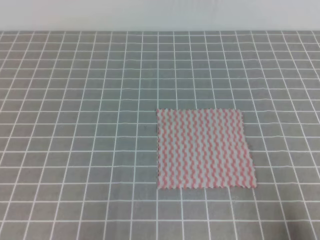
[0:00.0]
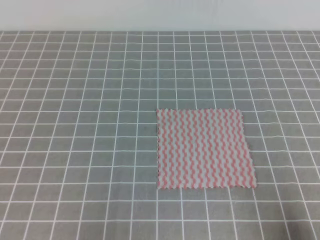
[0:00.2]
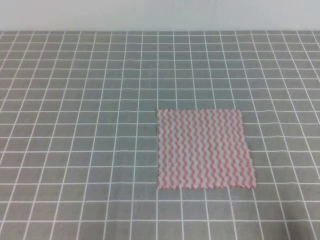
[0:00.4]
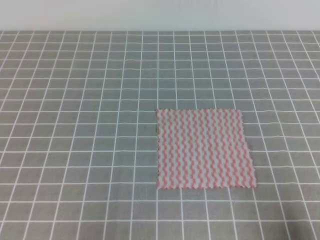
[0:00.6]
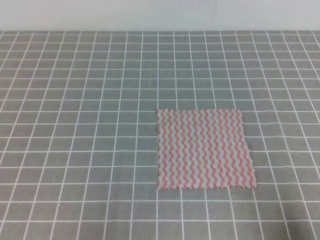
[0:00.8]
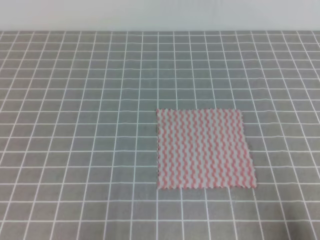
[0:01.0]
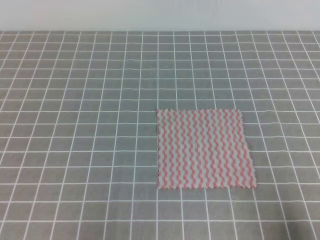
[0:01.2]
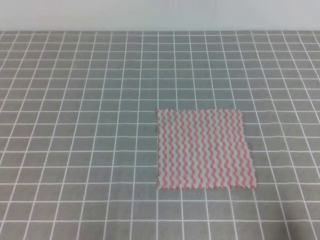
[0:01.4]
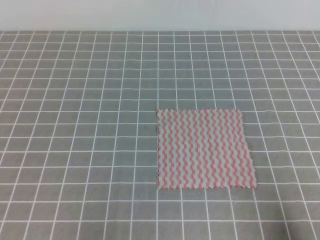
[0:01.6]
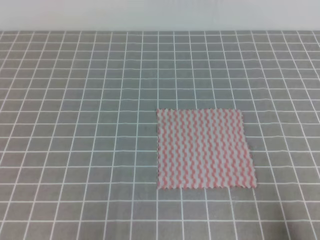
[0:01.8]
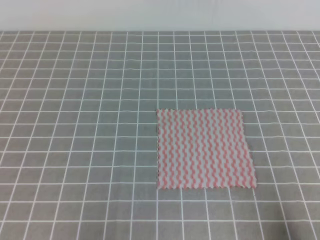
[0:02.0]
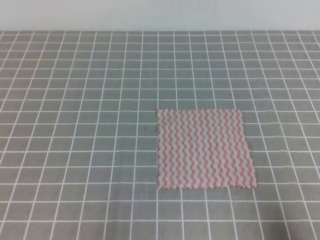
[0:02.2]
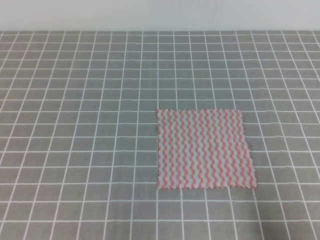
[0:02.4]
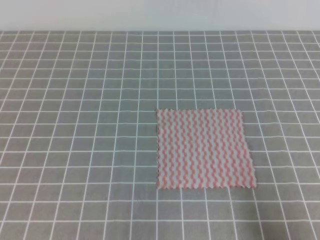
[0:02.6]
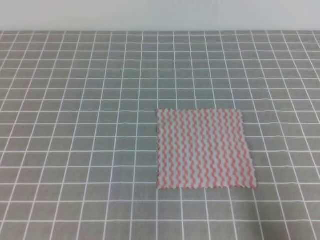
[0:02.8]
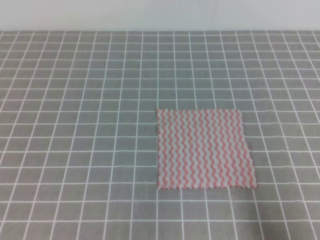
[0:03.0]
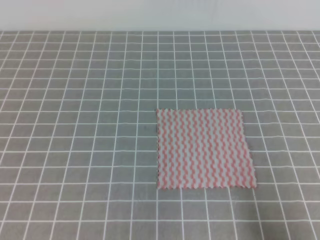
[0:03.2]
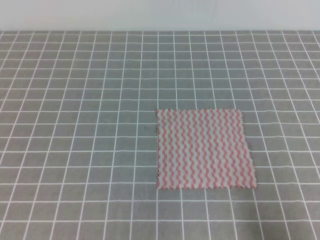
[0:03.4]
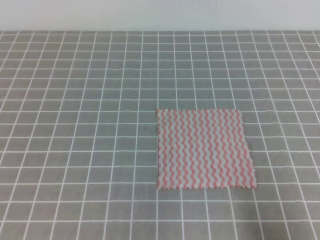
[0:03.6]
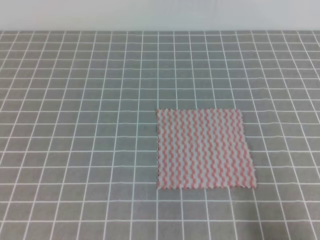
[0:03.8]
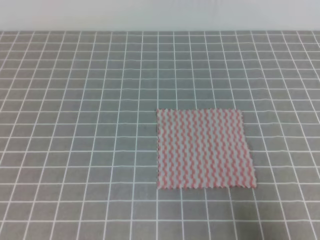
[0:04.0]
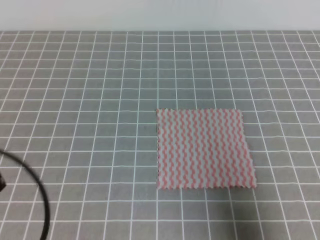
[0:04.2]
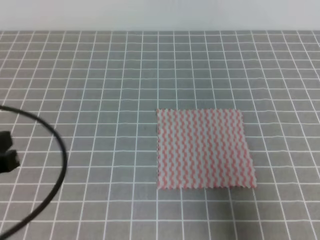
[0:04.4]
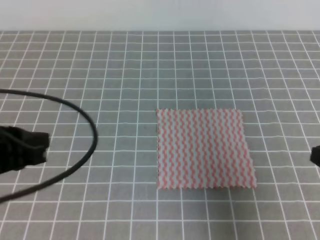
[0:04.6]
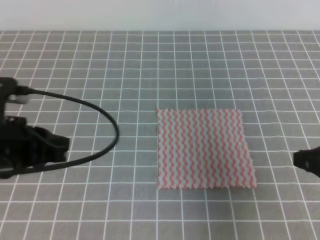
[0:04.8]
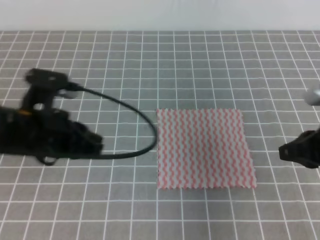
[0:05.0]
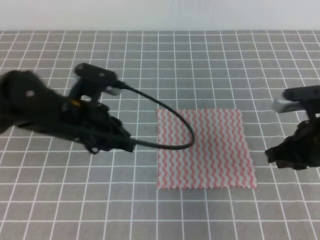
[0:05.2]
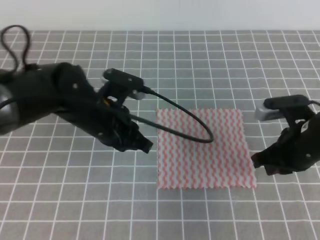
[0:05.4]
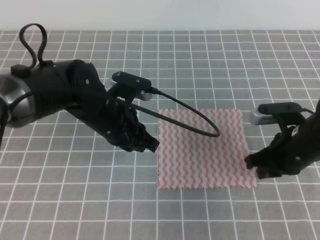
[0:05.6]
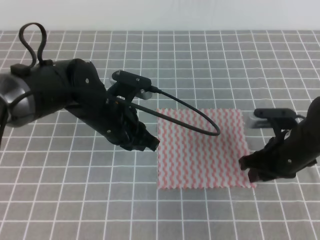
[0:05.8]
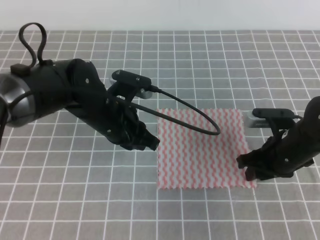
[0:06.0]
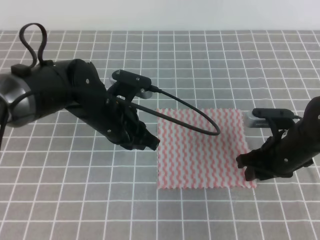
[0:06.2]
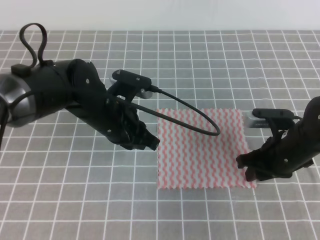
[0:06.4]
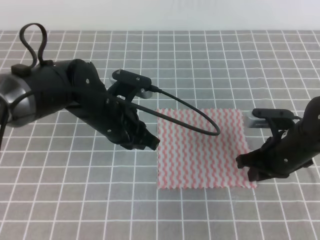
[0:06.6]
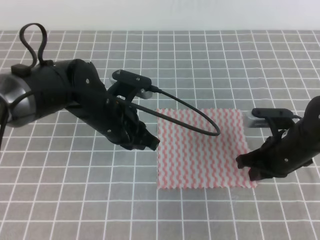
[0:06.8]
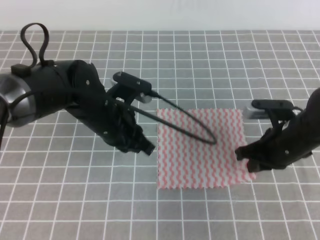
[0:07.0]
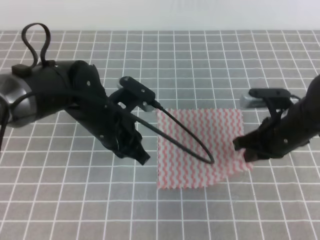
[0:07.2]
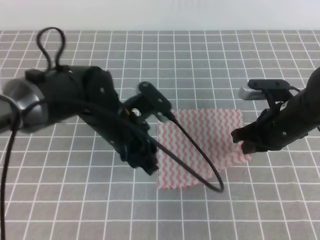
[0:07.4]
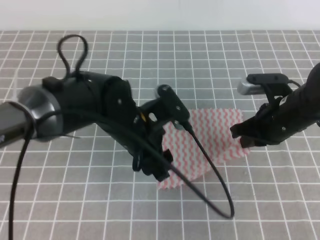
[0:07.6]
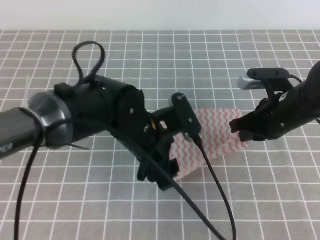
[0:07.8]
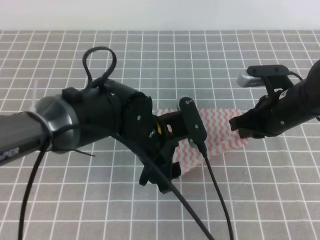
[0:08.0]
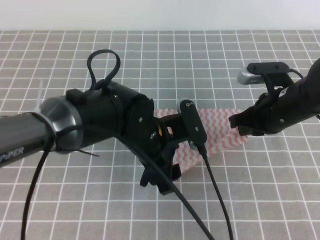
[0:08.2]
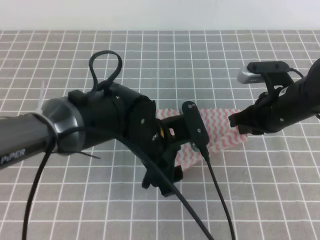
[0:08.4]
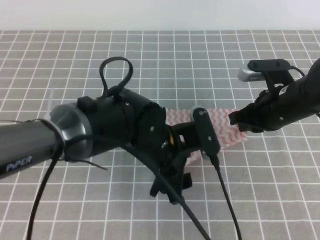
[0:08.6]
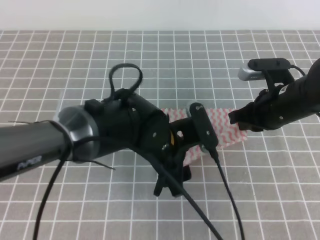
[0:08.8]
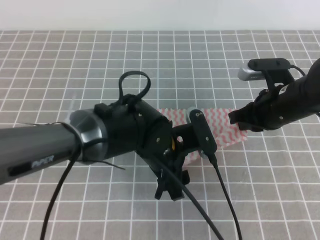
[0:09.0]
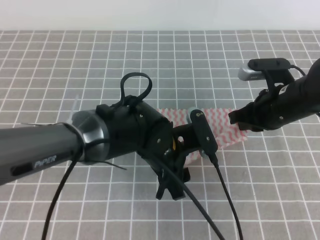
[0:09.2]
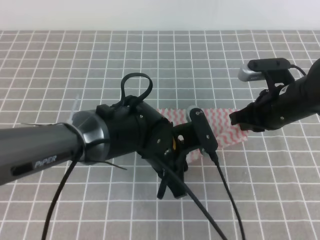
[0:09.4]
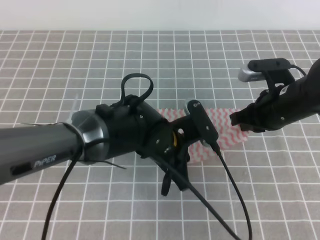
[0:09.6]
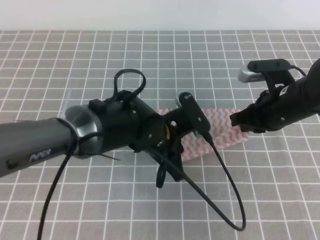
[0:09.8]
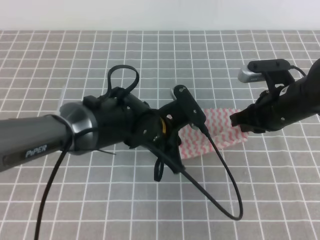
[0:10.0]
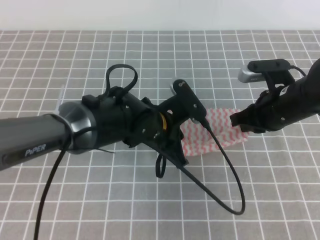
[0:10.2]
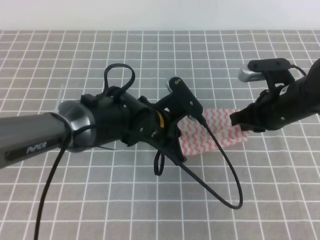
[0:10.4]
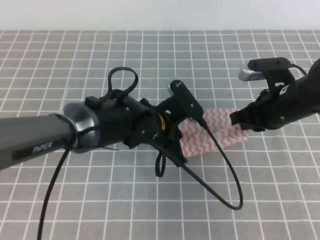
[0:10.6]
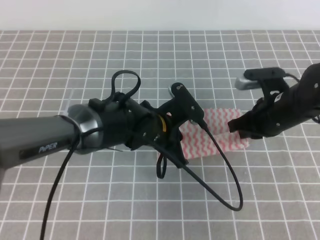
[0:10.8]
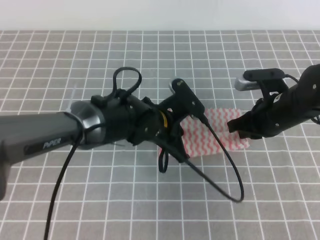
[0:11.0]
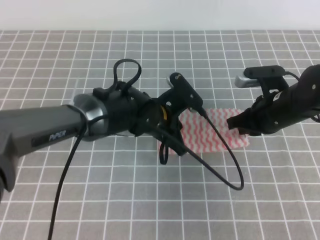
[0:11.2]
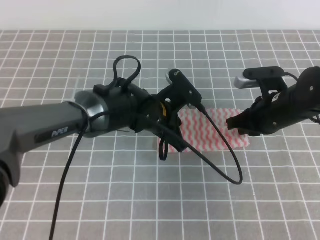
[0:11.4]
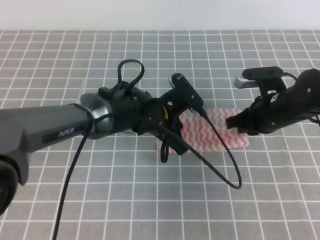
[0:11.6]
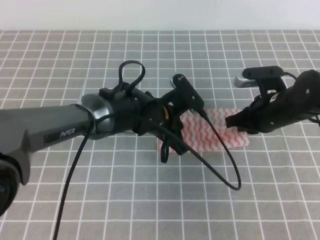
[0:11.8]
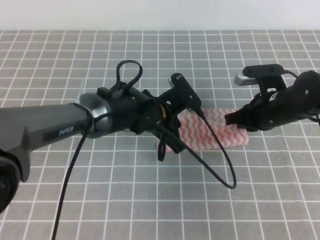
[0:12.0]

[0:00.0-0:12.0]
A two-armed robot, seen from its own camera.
Step, 0:00.0 to 0:09.2: Fold the towel upwards with the both gripper.
Step, 0:09.6 to 0:10.4: Tidy up the towels.
0:03.0 to 0:04.4: The right gripper heads upward and forward, covering approximately 10 cm; the left gripper heads forward and upward, covering roughly 10 cm.
0:04.4 to 0:06.0: The right gripper heads forward and downward, covering about 20 cm, and opens up, while the left gripper is displaced to the right, forward and downward by approximately 25 cm.
0:06.0 to 0:07.6: The right gripper moves roughly 5 cm, and closes, while the left gripper opens.
0:07.6 to 0:09.0: The left gripper shifts by approximately 5 cm.
0:09.0 to 0:10.4: The left gripper closes up.
0:10.4 to 0:12.0: There are only small adjustments of the grippers.

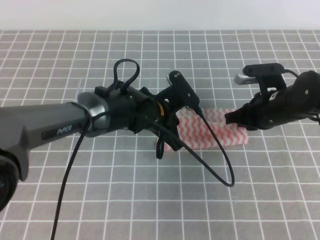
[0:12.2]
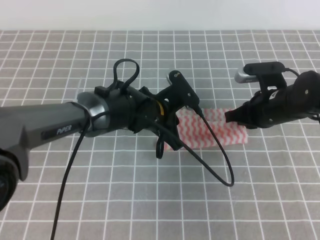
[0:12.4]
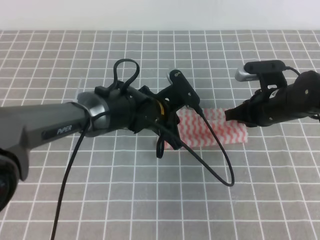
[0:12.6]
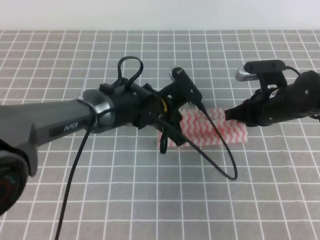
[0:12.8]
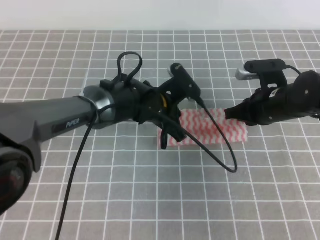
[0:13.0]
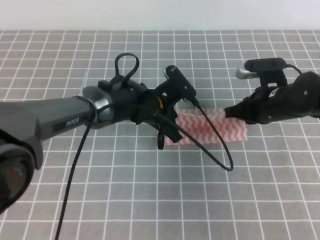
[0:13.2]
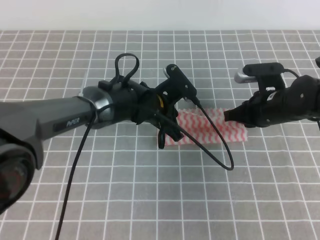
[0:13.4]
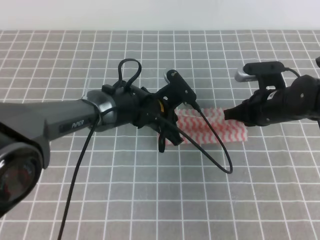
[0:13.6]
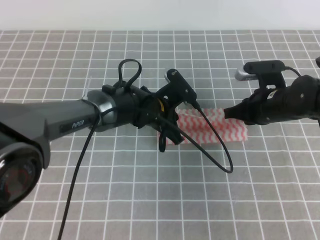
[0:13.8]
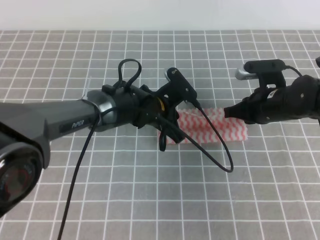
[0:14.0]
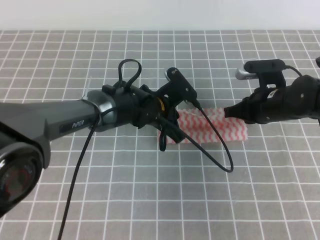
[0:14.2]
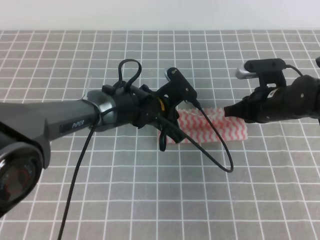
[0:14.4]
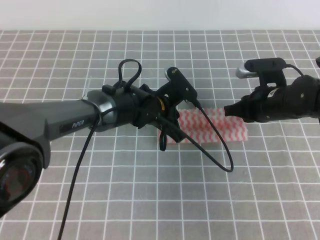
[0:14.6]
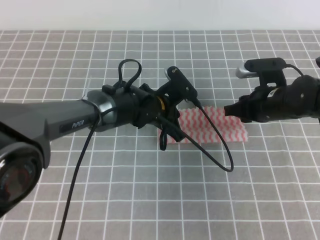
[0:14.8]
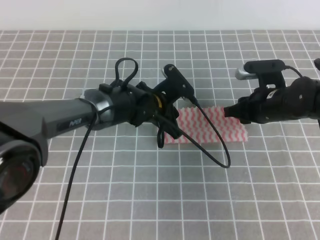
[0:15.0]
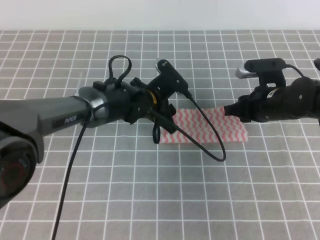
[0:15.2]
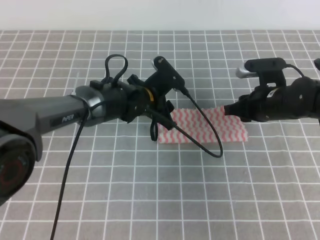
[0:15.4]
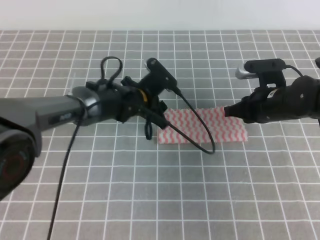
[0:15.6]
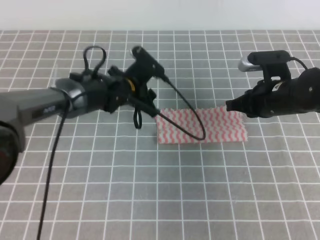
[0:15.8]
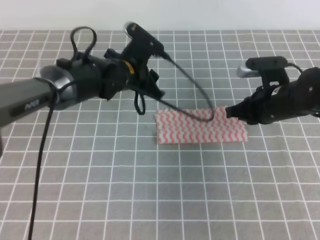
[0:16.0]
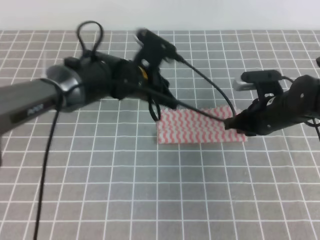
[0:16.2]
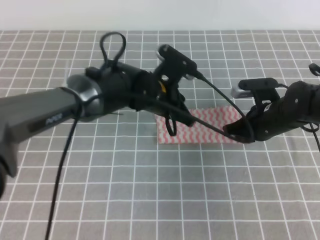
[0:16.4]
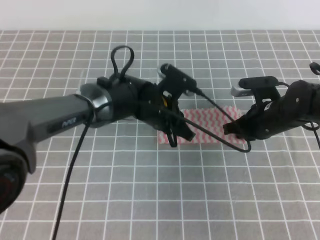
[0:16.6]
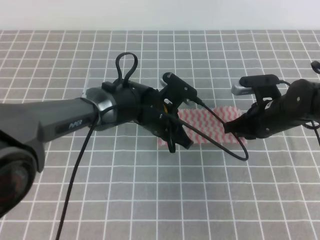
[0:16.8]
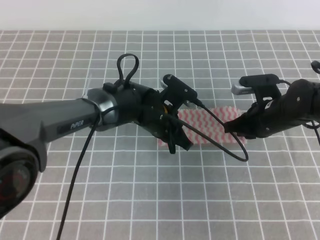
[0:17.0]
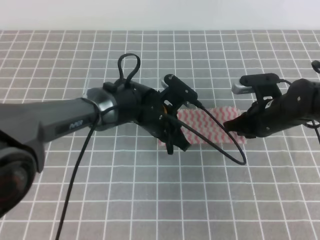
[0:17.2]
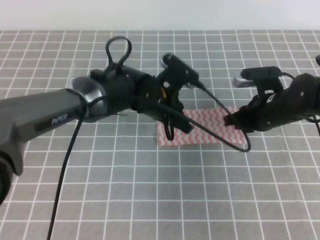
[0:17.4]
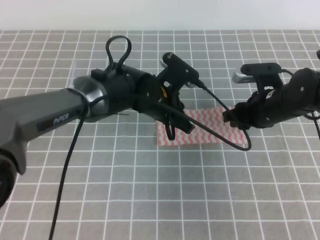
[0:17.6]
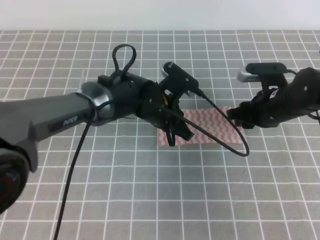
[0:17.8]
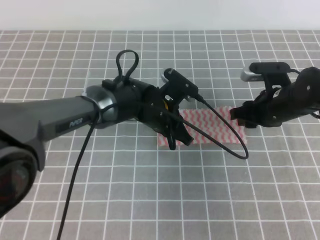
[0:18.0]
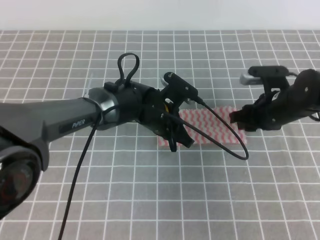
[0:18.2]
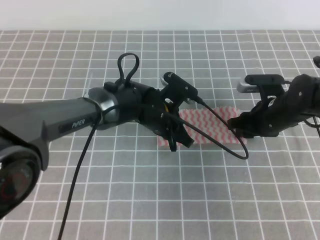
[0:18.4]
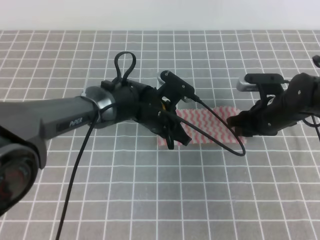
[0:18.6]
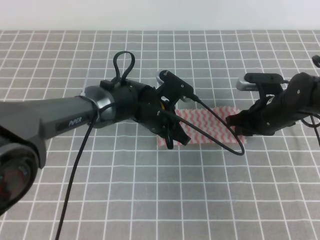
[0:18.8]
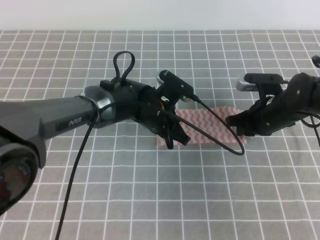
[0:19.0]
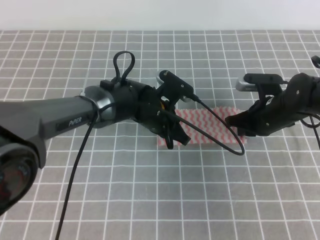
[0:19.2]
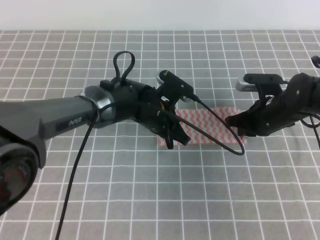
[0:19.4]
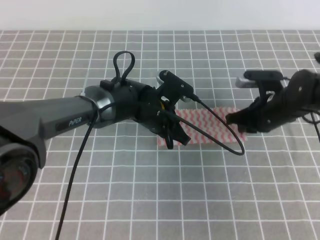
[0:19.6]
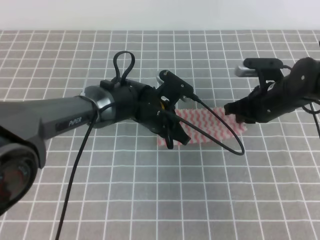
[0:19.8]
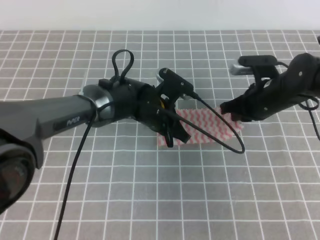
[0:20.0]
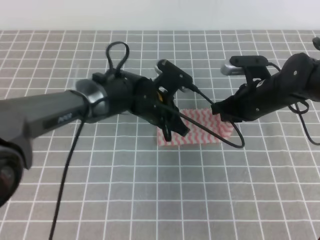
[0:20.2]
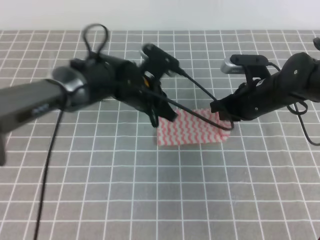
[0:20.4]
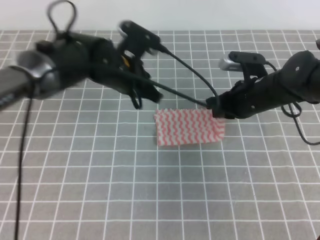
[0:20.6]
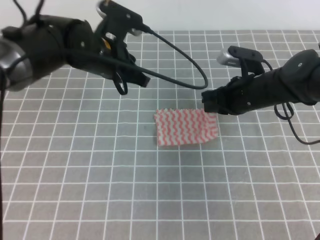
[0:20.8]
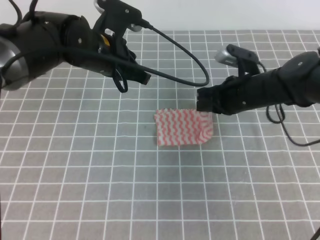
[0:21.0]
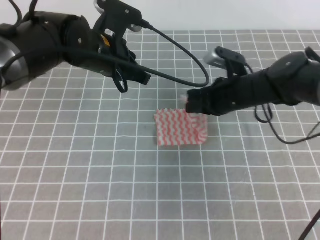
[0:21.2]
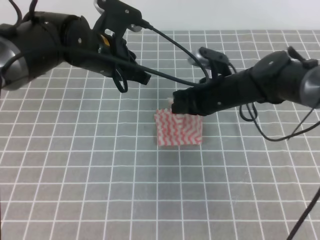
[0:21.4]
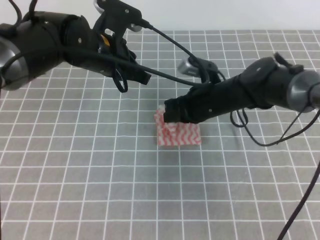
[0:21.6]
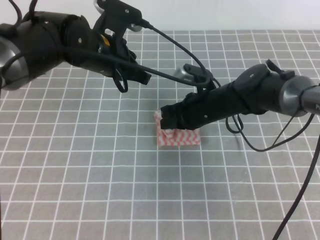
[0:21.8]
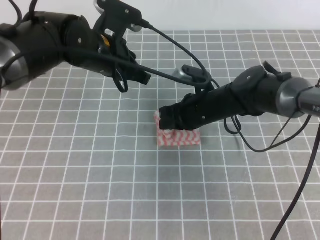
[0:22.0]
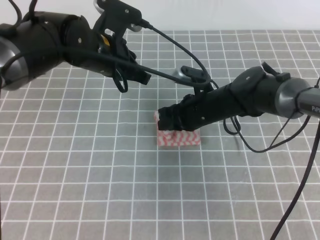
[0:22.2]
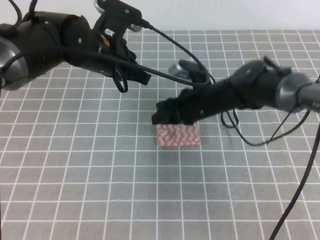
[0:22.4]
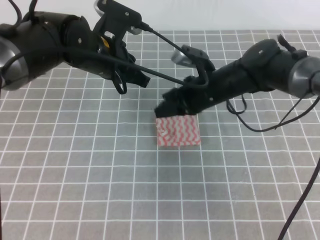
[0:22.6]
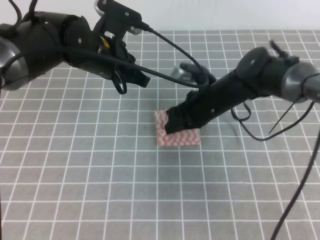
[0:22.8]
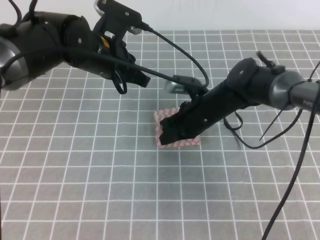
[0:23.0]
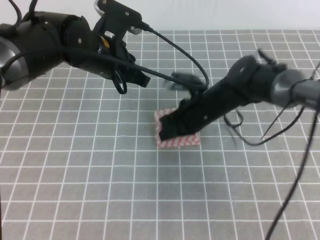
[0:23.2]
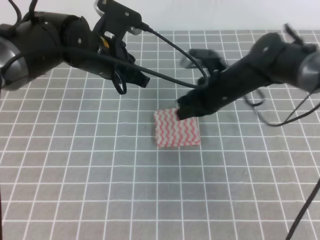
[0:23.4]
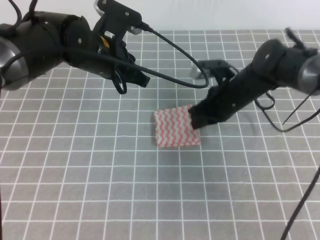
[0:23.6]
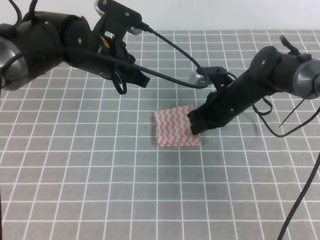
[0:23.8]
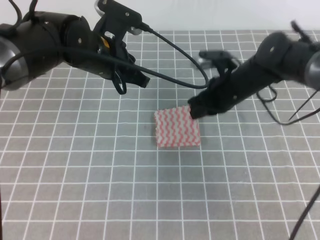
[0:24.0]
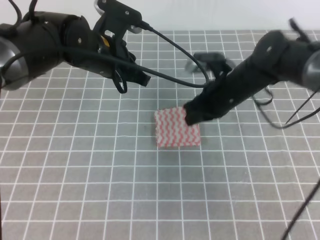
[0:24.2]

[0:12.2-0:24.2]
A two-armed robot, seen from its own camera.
Step, 0:13.6 to 0:14.8: Tidy up the towels.
0:12.2 to 0:13.8: There are only small adjustments of the grippers.
0:13.8 to 0:15.2: The right gripper opens up, while the left gripper opens its fingers.
0:15.2 to 0:16.6: The left gripper closes its fingers. Meanwhile the right gripper closes up.
0:16.6 to 0:18.2: The right gripper opens up.
0:18.2 to 0:19.8: The right gripper closes its fingers.
0:19.8 to 0:21.2: The right gripper shifts about 5 cm to the left, while the left gripper moves upward and to the left, roughly 15 cm.
0:21.2 to 0:22.6: The right gripper opens its fingers.
0:22.6 to 0:24.2: The right gripper closes up.
